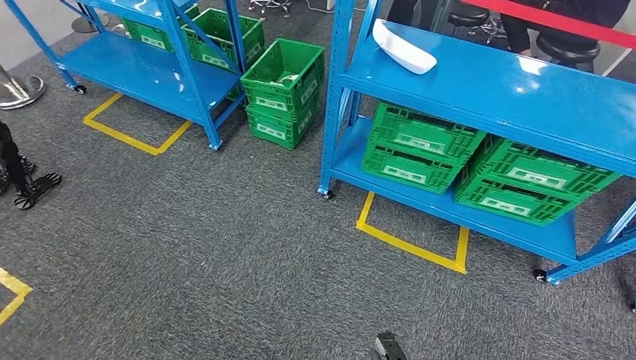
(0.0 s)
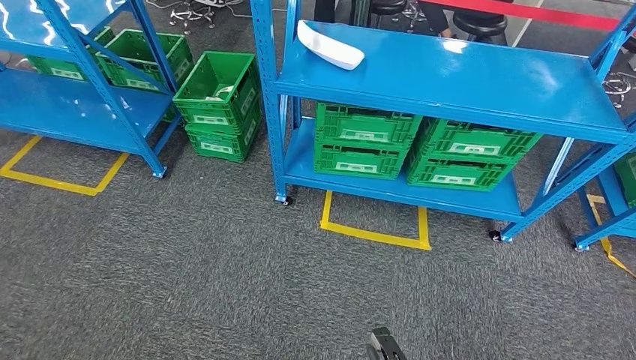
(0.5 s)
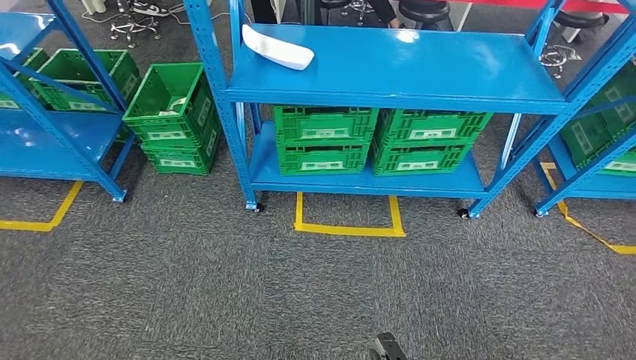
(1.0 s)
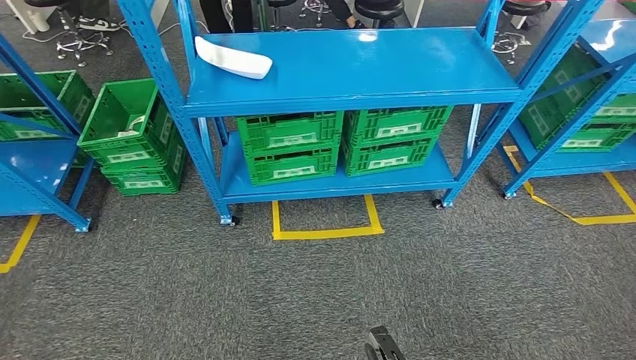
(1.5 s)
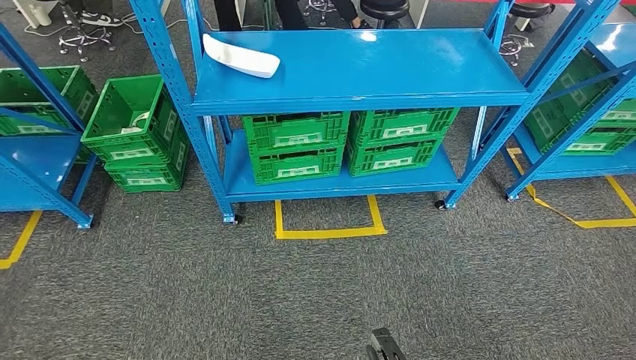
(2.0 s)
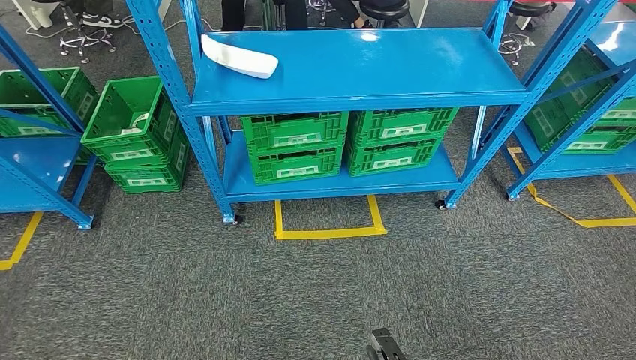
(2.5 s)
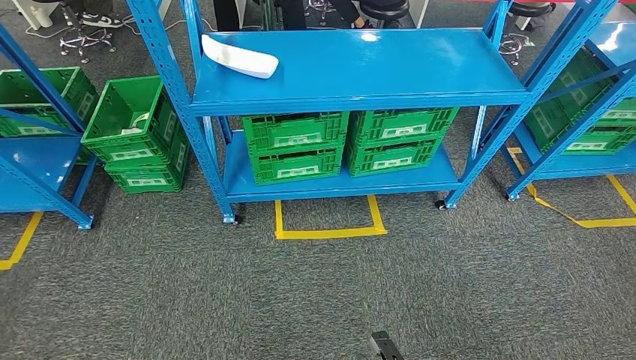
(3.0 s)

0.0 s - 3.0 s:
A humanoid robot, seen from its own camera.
Step, 0.0 s - 3.0 s: Move to the initial position at the workbench.
1.5 s - 3.0 s: Both hands stay about where they are.
